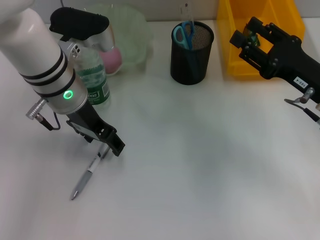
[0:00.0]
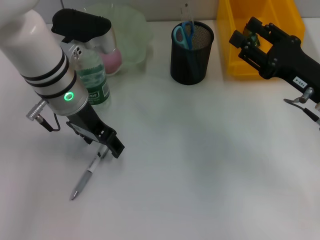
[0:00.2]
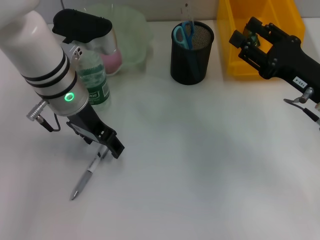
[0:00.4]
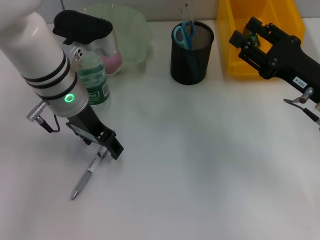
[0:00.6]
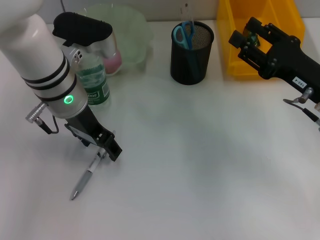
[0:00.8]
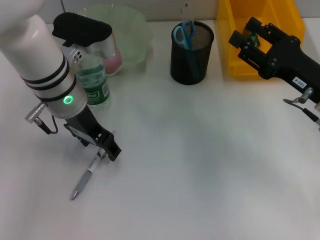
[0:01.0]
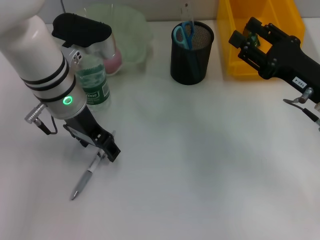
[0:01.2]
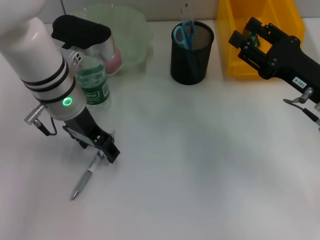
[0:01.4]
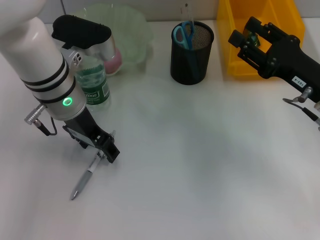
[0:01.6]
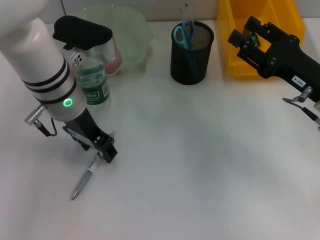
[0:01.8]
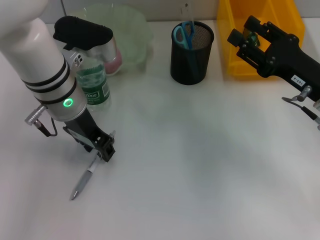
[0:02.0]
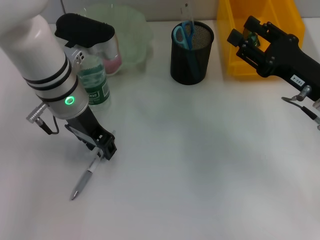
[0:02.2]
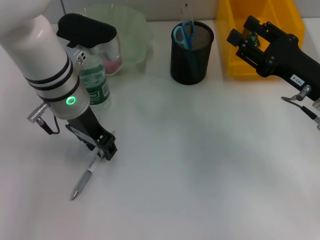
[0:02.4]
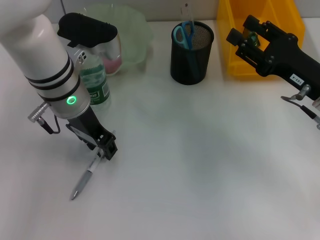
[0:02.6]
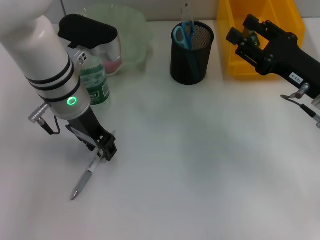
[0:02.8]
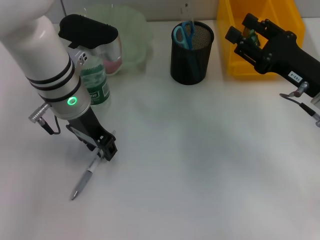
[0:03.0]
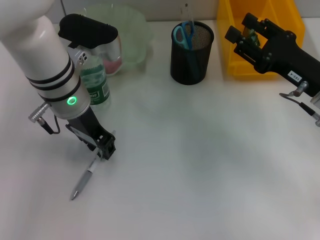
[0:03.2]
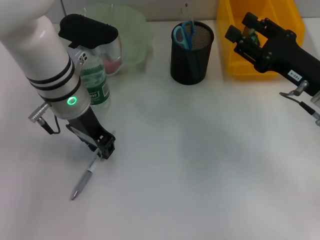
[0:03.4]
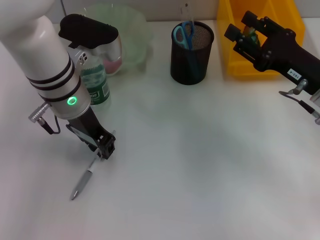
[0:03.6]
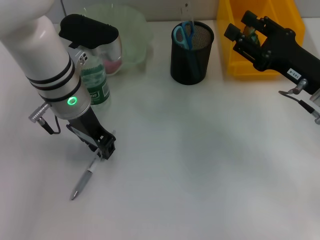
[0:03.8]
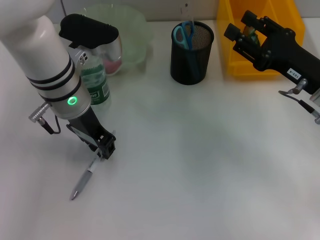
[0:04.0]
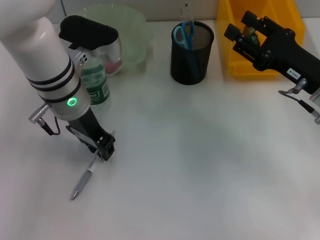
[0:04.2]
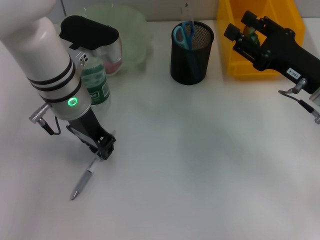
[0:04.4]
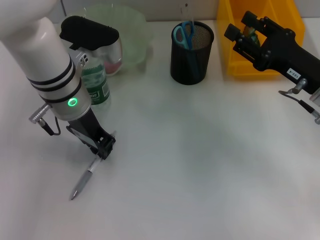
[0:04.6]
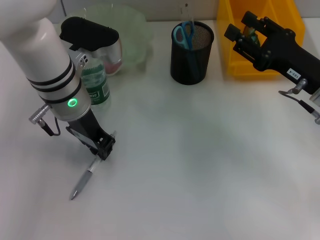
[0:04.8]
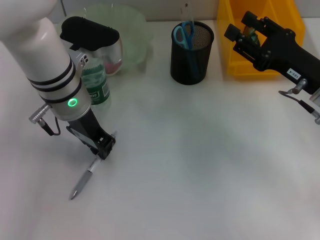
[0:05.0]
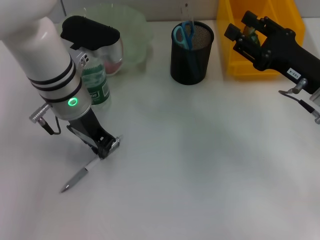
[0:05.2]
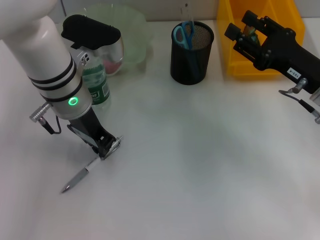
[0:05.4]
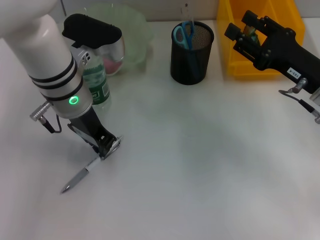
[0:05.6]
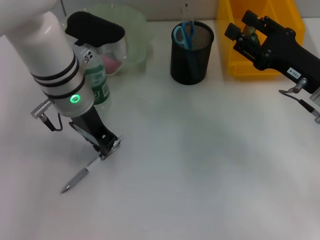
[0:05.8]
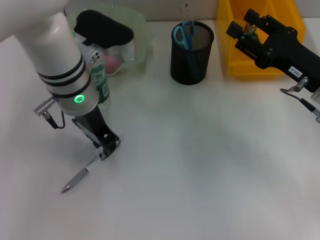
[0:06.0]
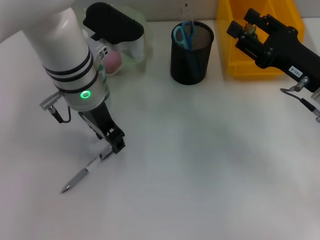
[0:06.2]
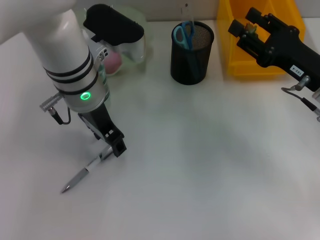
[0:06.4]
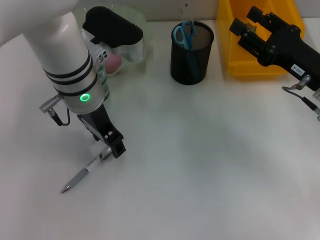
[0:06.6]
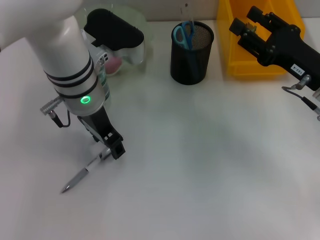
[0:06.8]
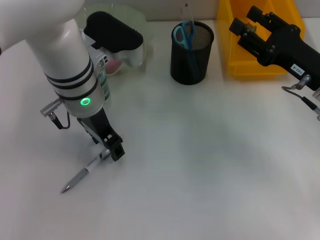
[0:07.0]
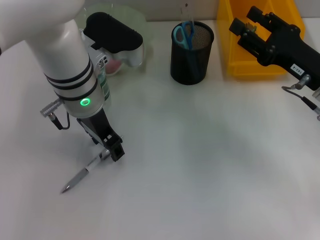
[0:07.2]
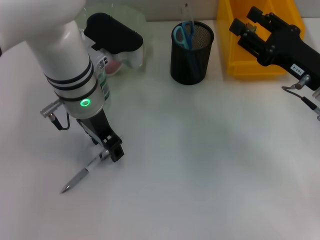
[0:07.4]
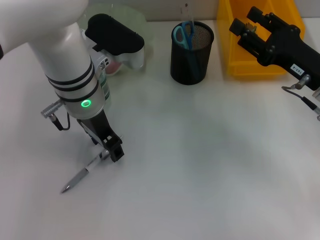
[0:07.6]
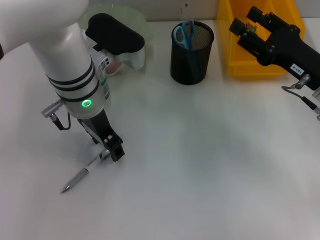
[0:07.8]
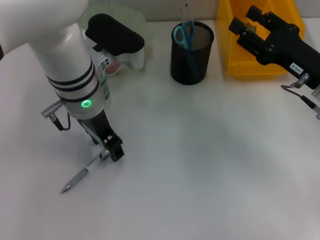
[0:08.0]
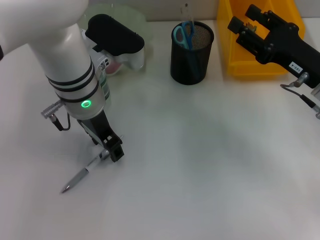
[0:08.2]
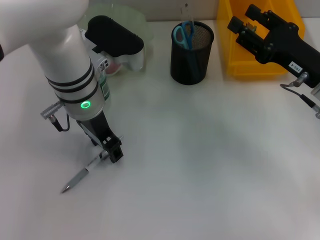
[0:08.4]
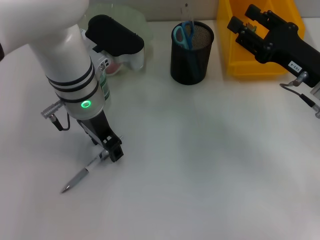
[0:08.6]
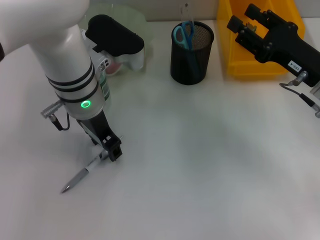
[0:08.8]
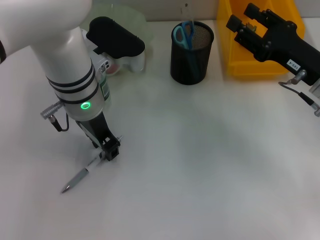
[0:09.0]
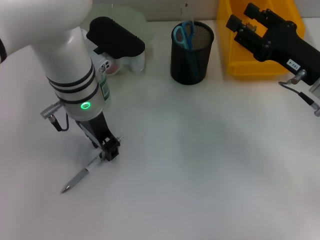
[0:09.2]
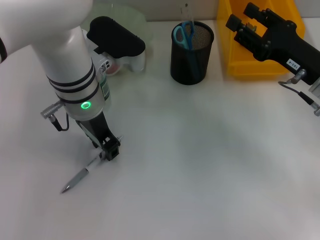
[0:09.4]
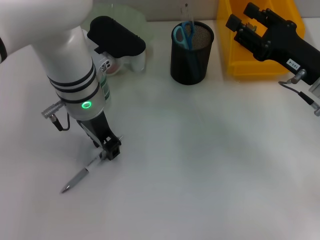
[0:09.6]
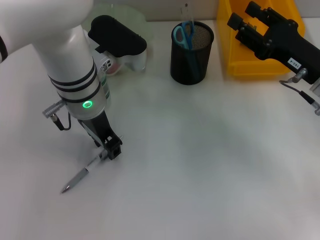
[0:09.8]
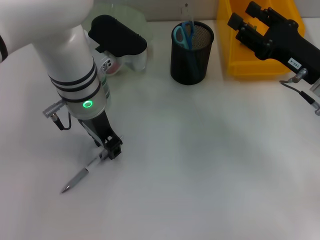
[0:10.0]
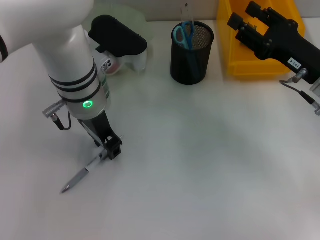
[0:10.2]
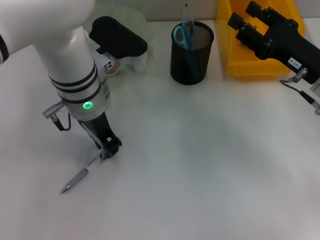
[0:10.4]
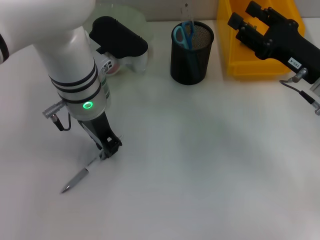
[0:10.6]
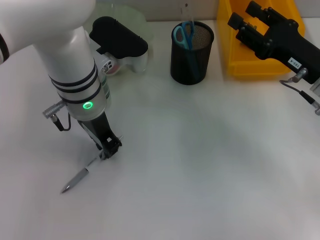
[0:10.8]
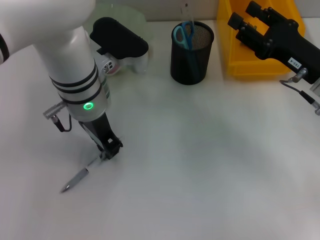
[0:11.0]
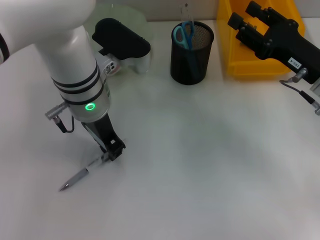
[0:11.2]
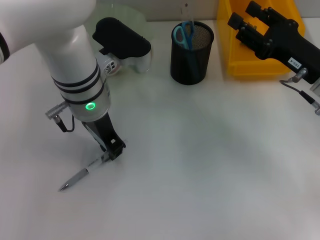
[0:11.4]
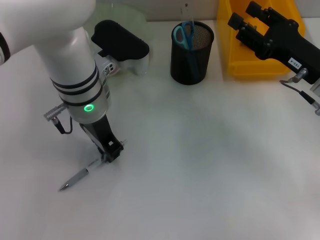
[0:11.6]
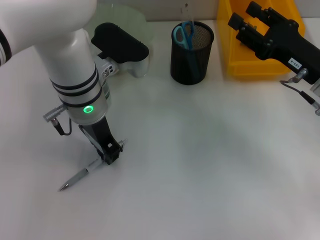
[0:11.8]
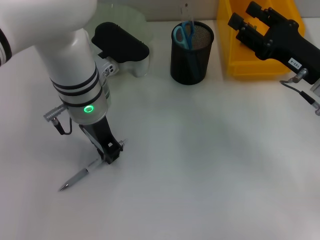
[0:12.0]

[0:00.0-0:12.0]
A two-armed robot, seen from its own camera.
0:00.0 to 0:01.6: Both grippers stay about where they are.
0:01.6 to 0:03.0: The left gripper closes its fingers.
0:03.0 to 0:04.4: Both grippers stay about where they are.
0:04.4 to 0:06.0: The grippers make only small movements.
0:06.0 to 0:07.6: The left gripper opens.
0:07.6 to 0:09.0: Both grippers stay about where they are.
0:09.0 to 0:10.4: The left gripper closes up.
0:10.4 to 0:12.0: The two grippers keep their place.

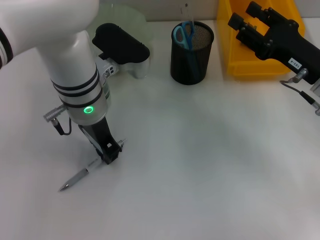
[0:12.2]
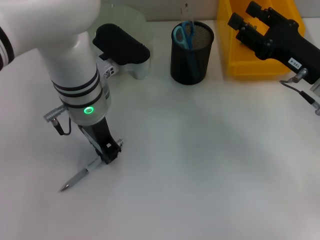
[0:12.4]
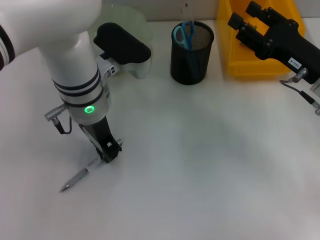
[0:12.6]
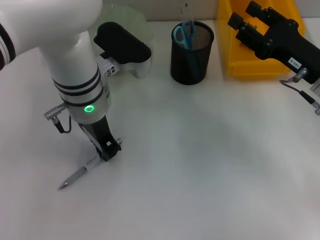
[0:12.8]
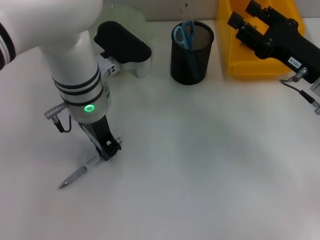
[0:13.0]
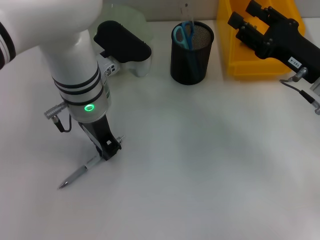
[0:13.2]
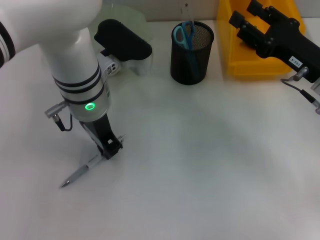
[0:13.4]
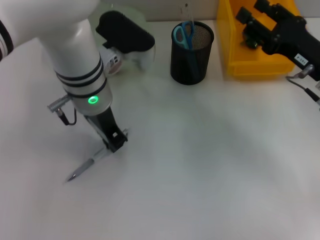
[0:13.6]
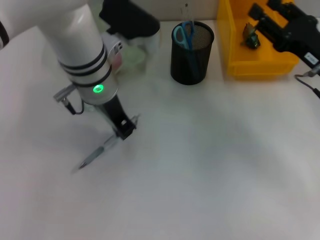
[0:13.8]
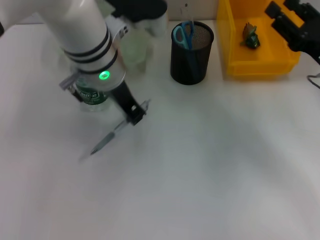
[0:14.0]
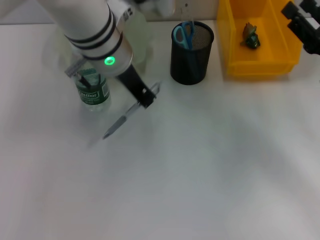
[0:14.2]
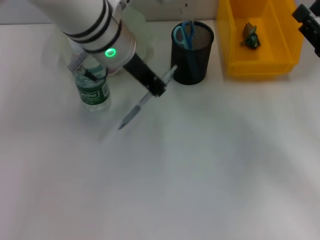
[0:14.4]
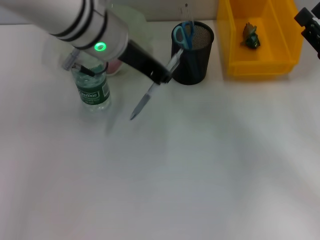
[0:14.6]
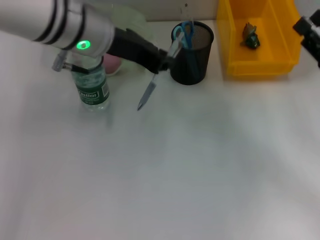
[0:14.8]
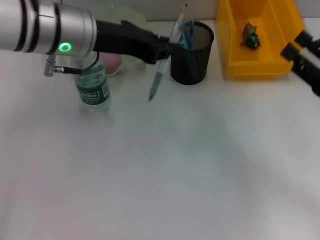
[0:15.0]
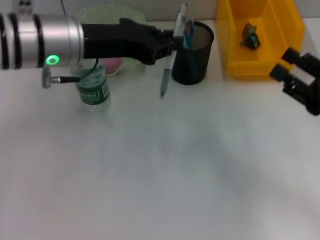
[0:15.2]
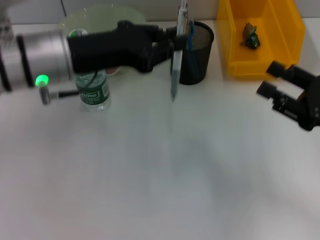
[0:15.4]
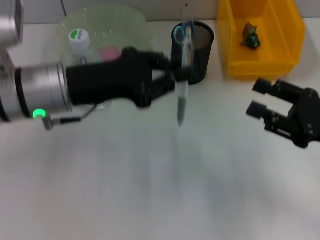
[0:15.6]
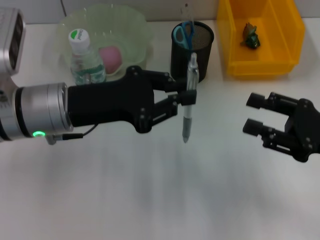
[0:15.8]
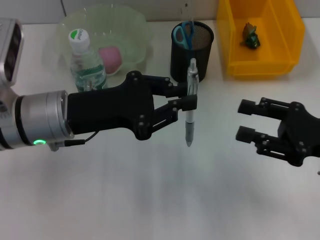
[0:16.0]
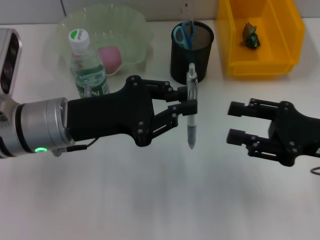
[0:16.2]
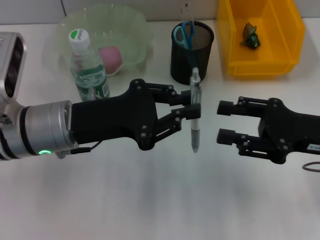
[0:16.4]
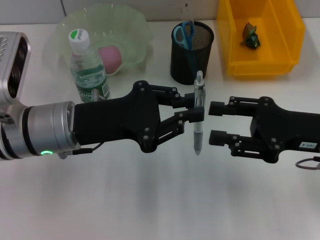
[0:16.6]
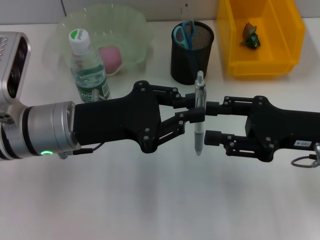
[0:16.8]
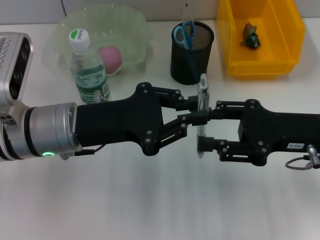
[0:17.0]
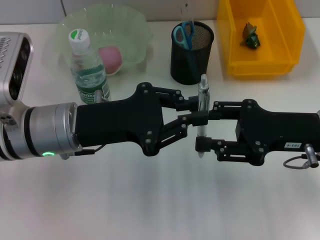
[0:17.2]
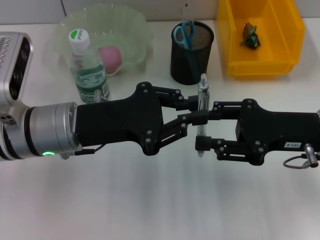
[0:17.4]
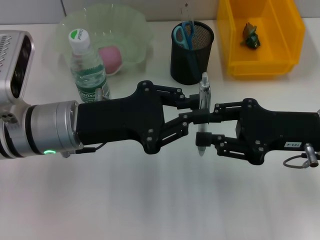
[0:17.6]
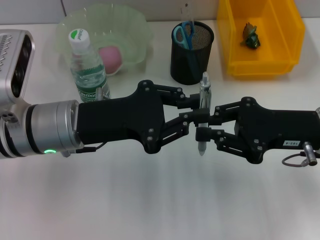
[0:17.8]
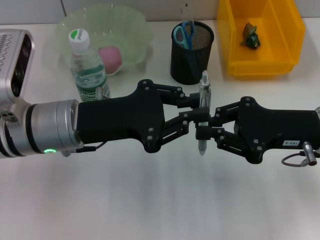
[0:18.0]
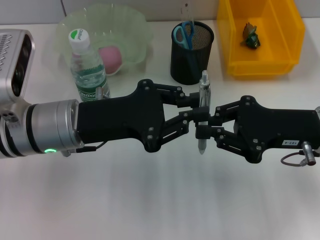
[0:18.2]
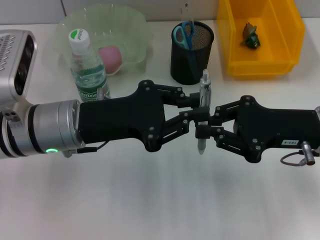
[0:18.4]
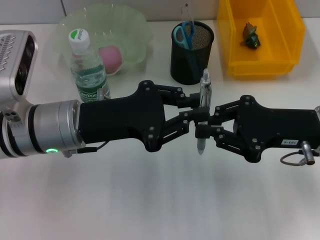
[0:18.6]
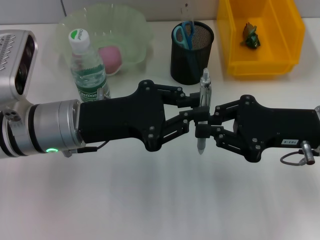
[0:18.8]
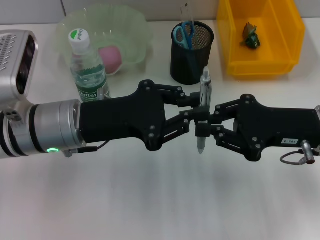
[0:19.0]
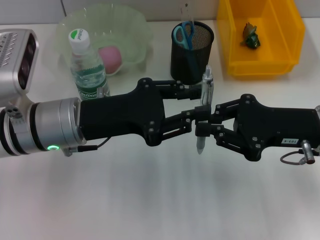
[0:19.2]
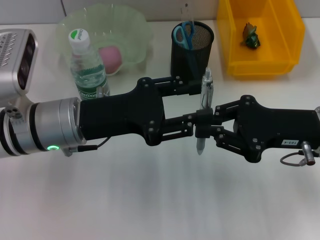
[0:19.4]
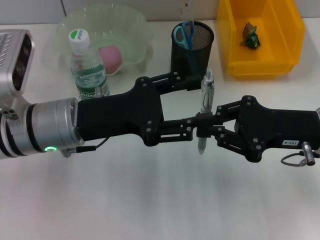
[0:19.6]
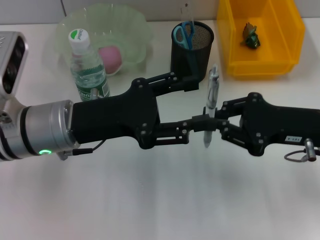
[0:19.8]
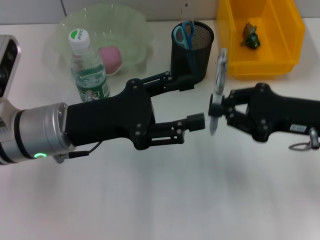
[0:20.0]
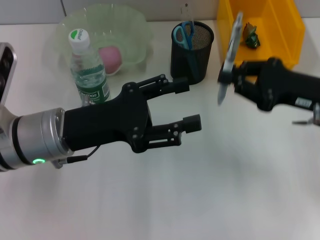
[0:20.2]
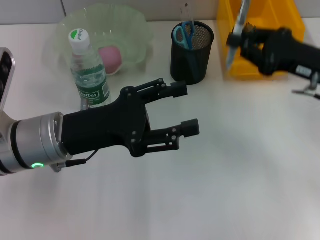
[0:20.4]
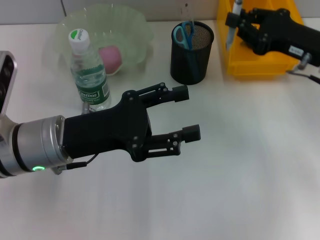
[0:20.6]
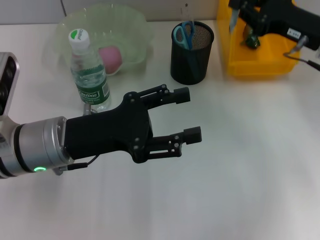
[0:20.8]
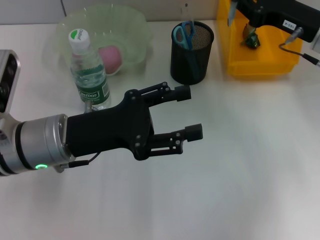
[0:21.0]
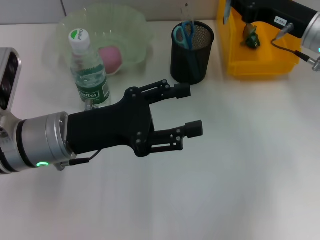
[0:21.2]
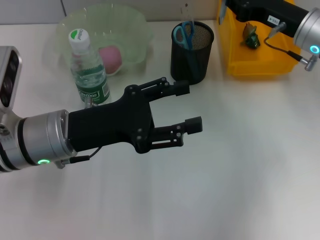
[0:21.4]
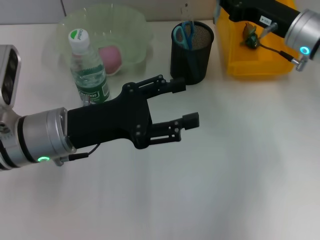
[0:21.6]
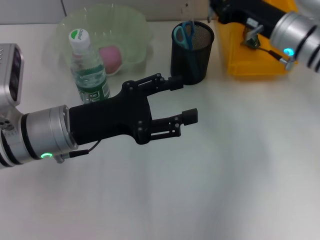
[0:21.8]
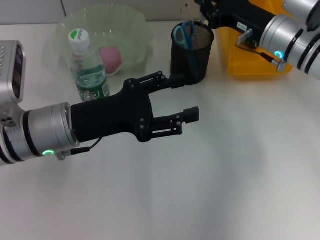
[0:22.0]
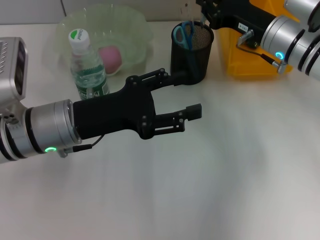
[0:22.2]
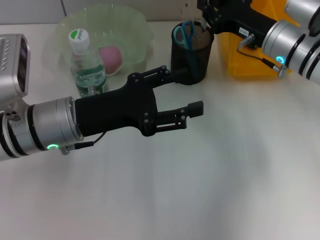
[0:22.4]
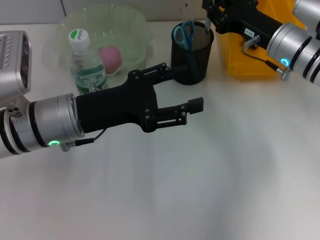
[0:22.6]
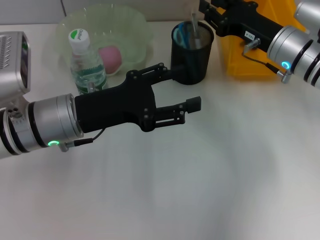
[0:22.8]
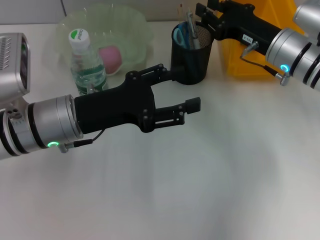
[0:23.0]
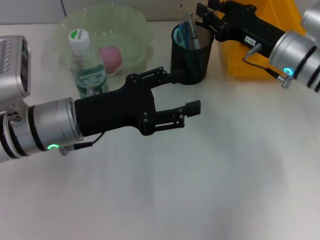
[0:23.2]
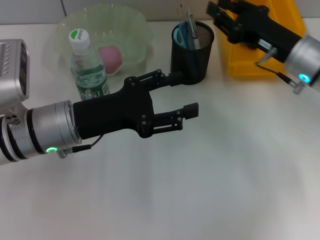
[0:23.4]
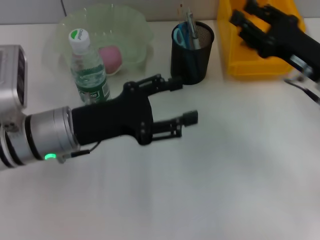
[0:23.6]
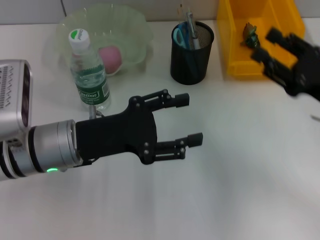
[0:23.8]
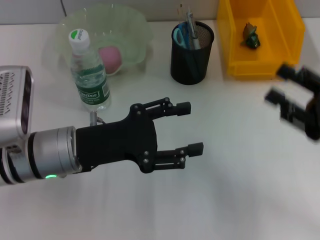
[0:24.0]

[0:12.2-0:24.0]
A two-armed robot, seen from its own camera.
Step, 0:12.4 to 0:19.8: Pass the gray spring-action pen from the left hand to the right hand.
Step, 0:20.0 to 0:23.2: Place the gray spring-action pen into the pen holder with the right hand.
0:12.2 to 0:13.6: The grippers make only small movements.
0:13.6 to 0:15.2: The right gripper is displaced backward by roughly 10 cm; the left gripper shifts approximately 5 cm to the left.
0:15.2 to 0:16.6: The right gripper travels to the left by some 5 cm. Meanwhile the left gripper goes approximately 10 cm downward and backward.
0:16.6 to 0:18.2: The right gripper closes.
0:18.2 to 0:19.6: The left gripper opens its fingers.
0:19.6 to 0:21.0: The left gripper opens its fingers, while the right gripper heads forward, covering about 10 cm.
0:21.0 to 0:22.6: The right gripper moves about 5 cm.
0:22.6 to 0:24.0: The right gripper travels backward and to the right by some 20 cm, and opens its fingers.
